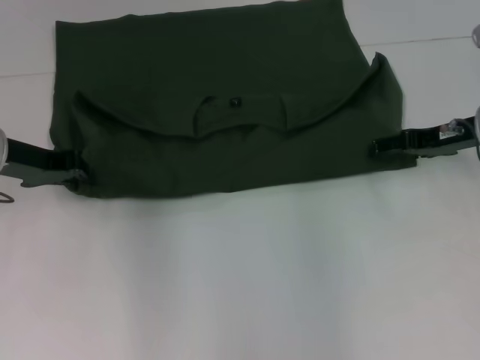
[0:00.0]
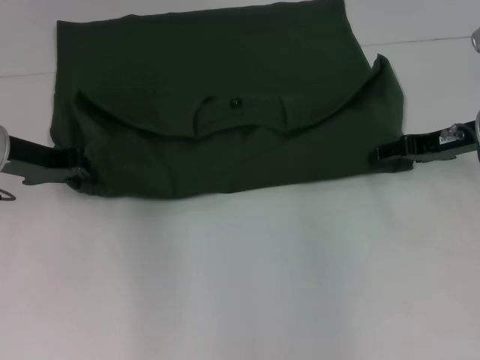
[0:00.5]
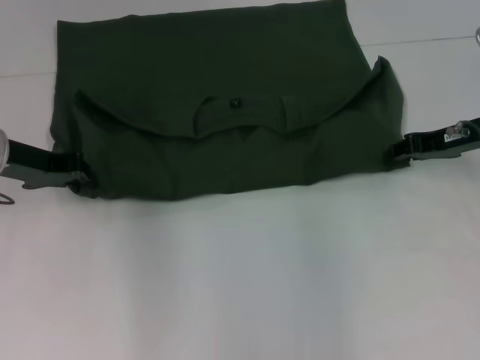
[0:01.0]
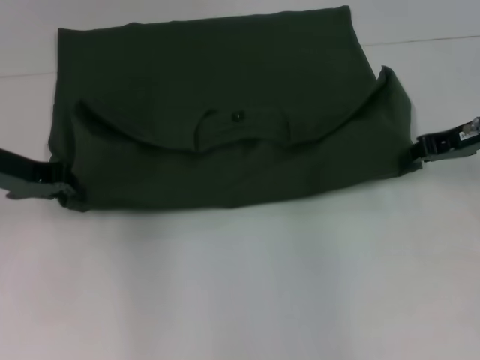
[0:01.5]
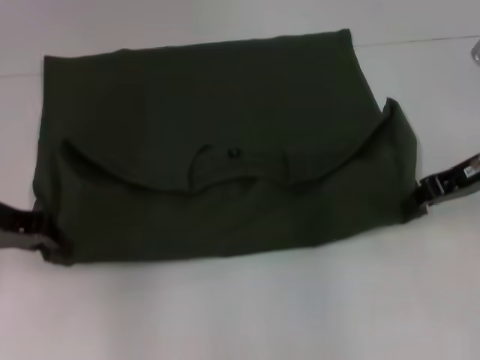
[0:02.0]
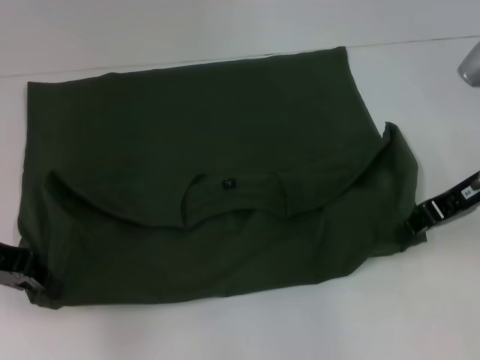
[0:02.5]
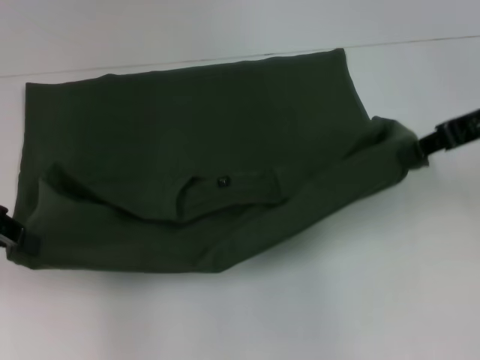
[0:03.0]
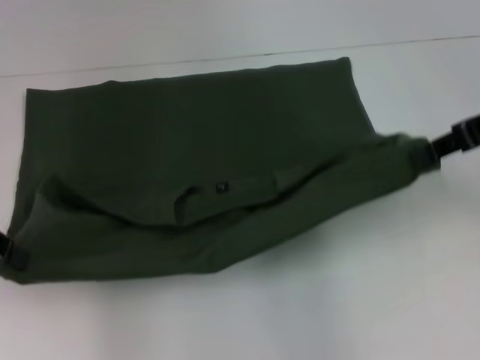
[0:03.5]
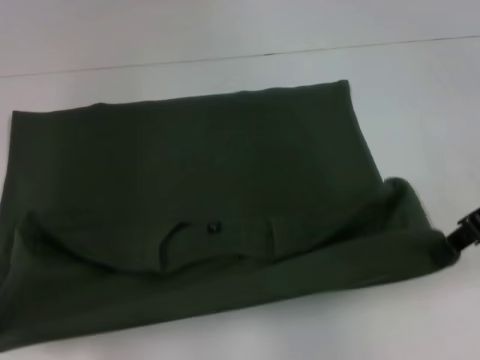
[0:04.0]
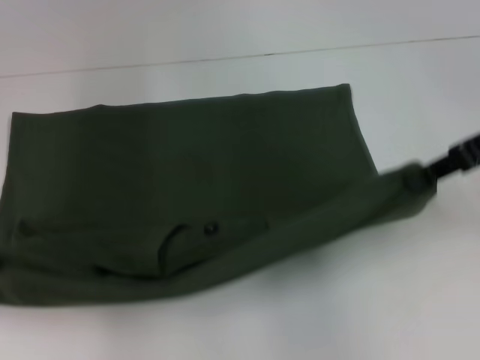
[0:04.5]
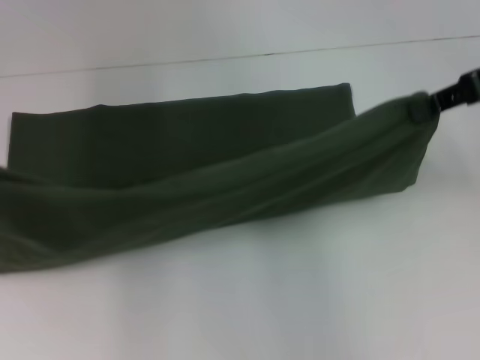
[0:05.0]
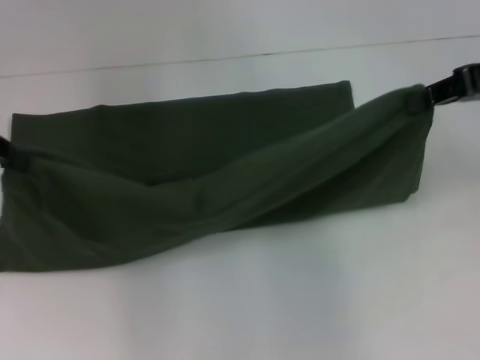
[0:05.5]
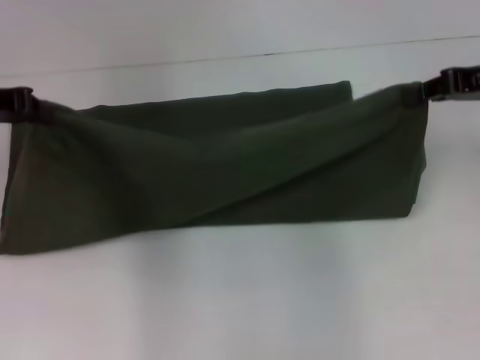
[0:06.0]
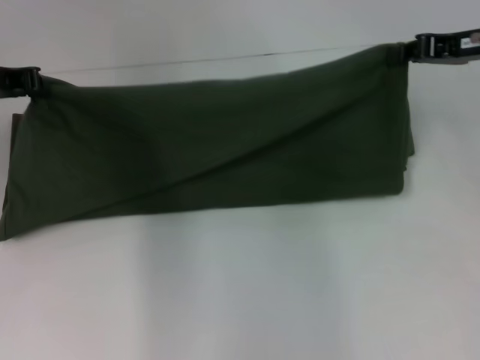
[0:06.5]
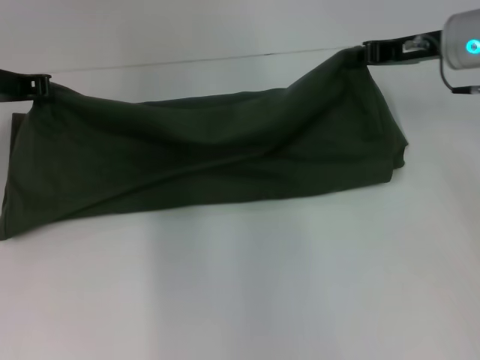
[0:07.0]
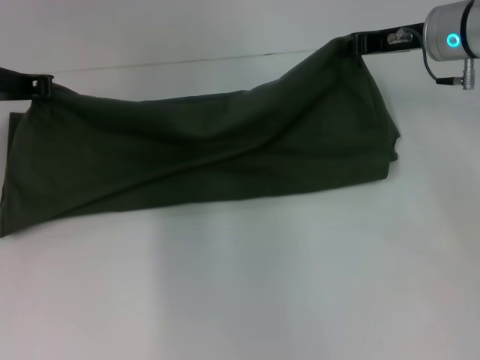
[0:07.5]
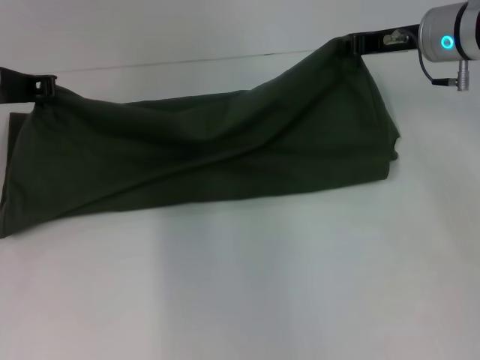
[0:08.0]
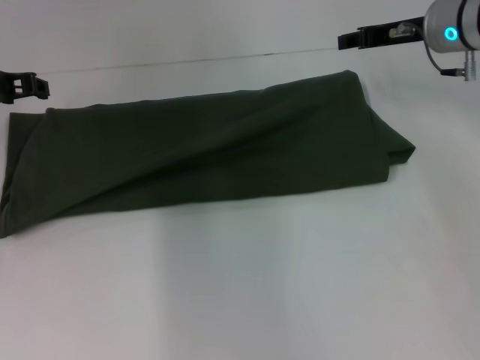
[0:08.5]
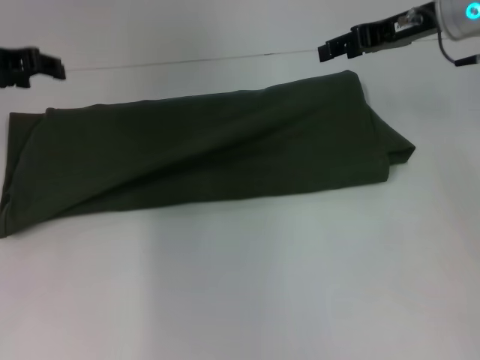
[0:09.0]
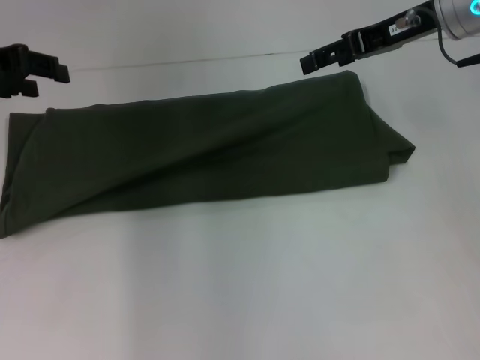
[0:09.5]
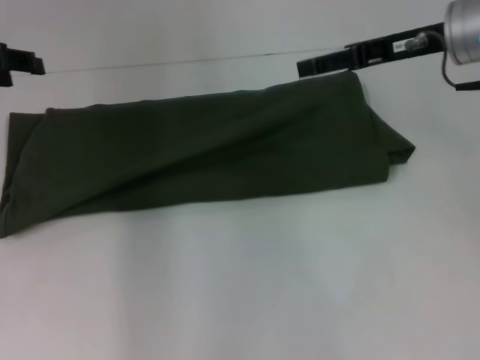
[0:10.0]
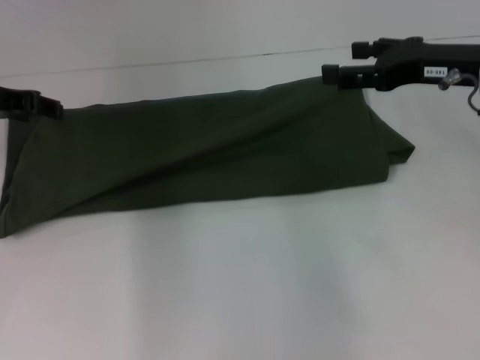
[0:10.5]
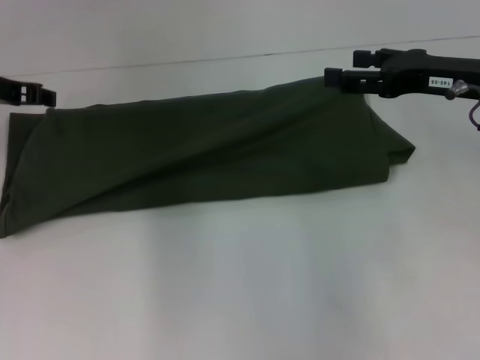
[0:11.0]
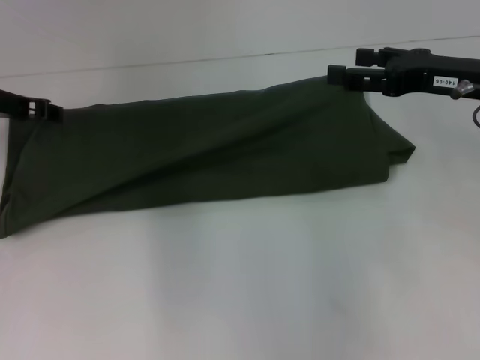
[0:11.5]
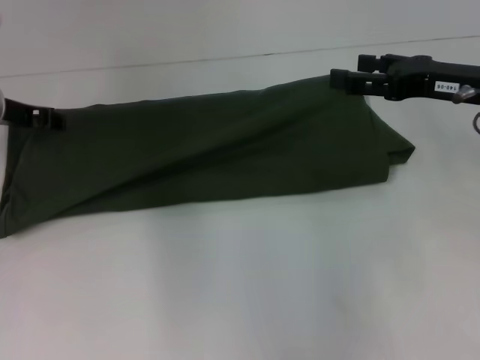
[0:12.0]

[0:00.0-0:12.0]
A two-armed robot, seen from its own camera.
Step, 0:00.0 to 0:02.0: Pull the clothes with your left hand.
Step, 0:00.0 to 0:02.0: Pull the clothes with your right hand.
Step, 0:02.5 to 0:08.5: Fold the clothes with your left hand.
Step, 0:02.5 to 0:08.5: Fold the clothes with your right hand.
0:00.0 to 0:02.0: The left gripper changes place by about 5 cm; the right gripper closes.
0:02.0 to 0:04.0: The right gripper shifts approximately 5 cm upward. The left gripper shifts by roughly 5 cm.
0:04.0 to 0:06.0: Both grippers travel together forward, approximately 5 cm.
0:06.0 to 0:08.0: The right gripper is displaced forward and to the left by some 10 cm. Meanwhile the left gripper ends up roughly 5 cm from where it was.
0:08.0 to 0:10.0: The right gripper ends up about 5 cm from where it was, and opens up. The left gripper goes about 5 cm to the left, and opens.
0:10.0 to 0:12.0: The left gripper heads downward, covering some 10 cm. Meanwhile the right gripper is displaced backward by roughly 5 cm.

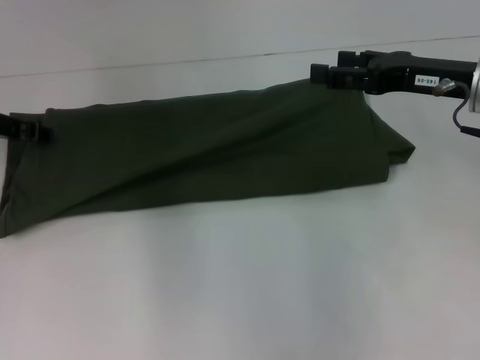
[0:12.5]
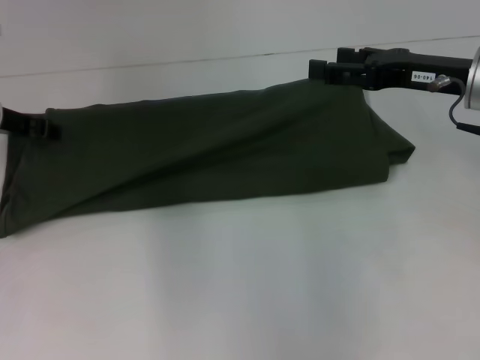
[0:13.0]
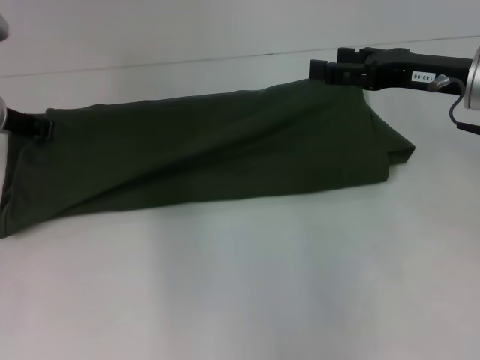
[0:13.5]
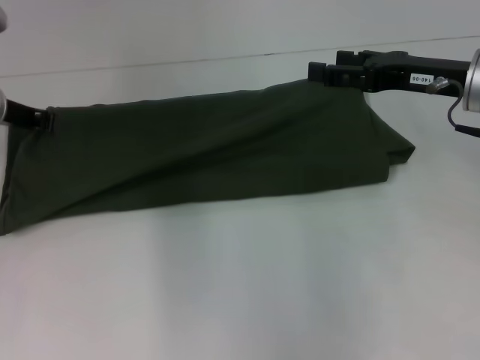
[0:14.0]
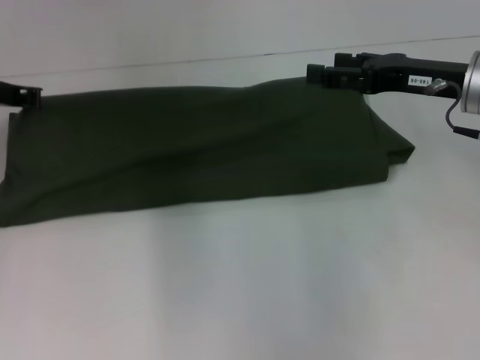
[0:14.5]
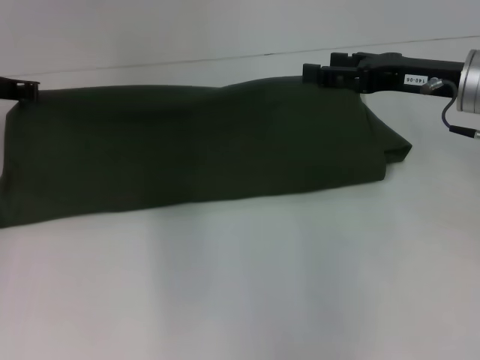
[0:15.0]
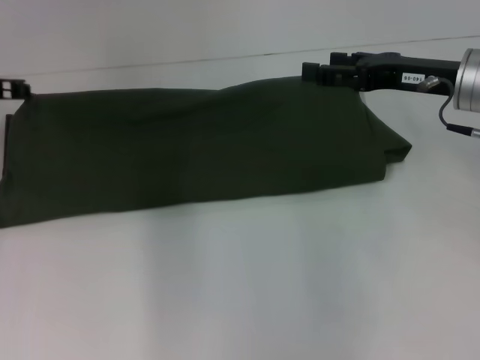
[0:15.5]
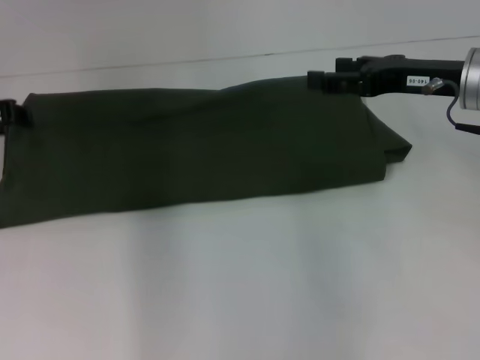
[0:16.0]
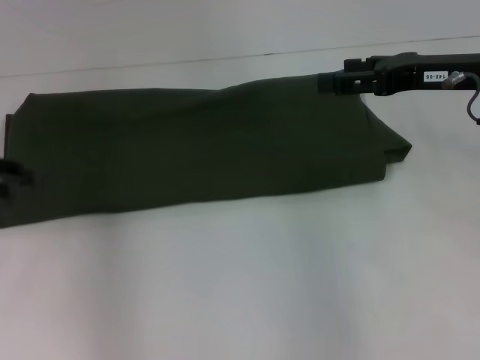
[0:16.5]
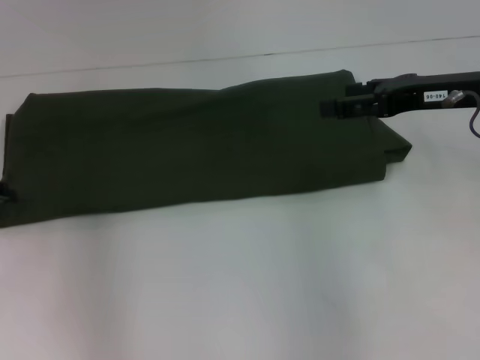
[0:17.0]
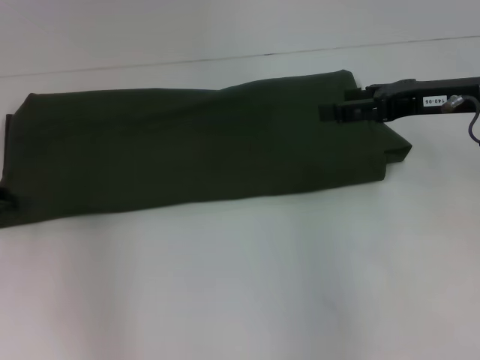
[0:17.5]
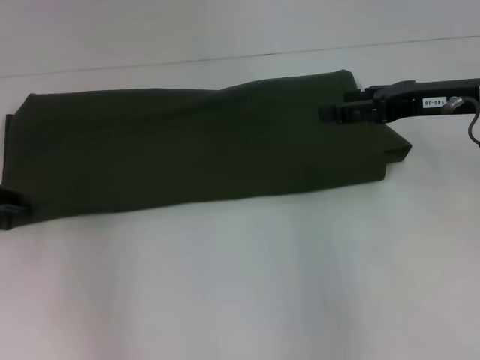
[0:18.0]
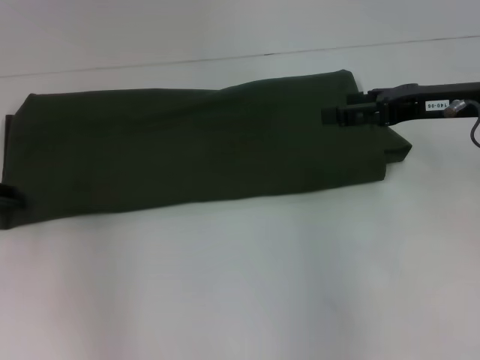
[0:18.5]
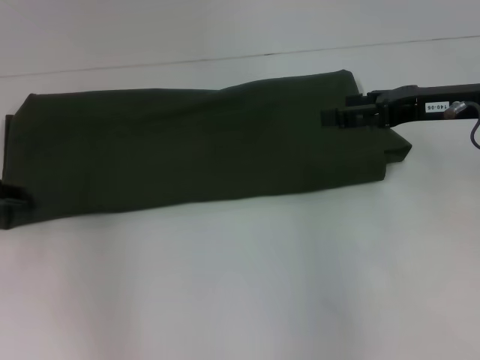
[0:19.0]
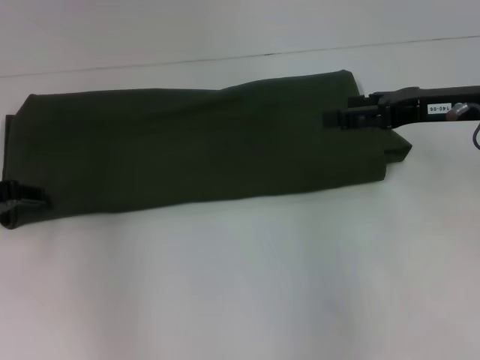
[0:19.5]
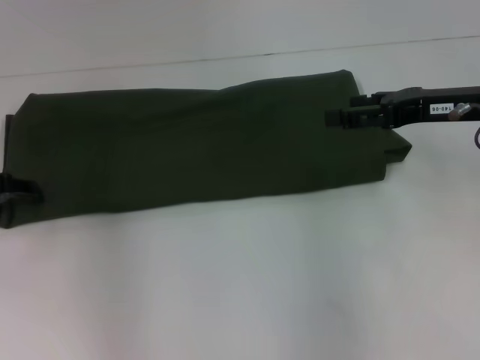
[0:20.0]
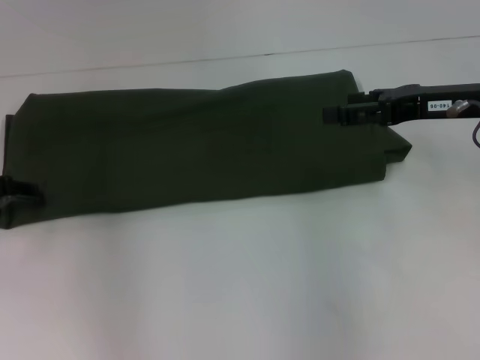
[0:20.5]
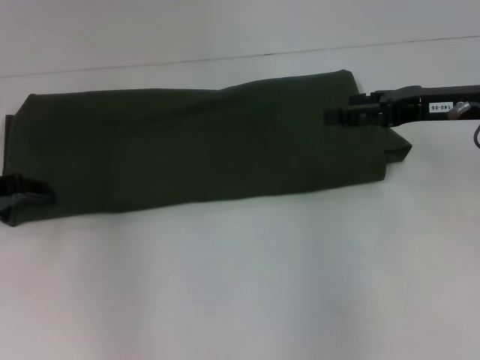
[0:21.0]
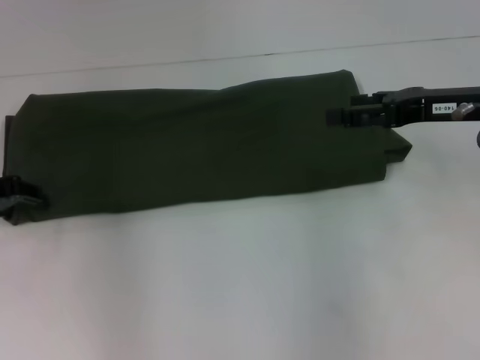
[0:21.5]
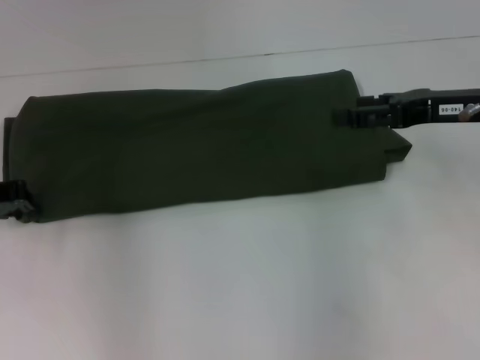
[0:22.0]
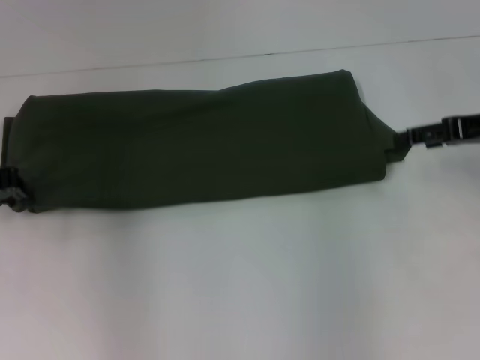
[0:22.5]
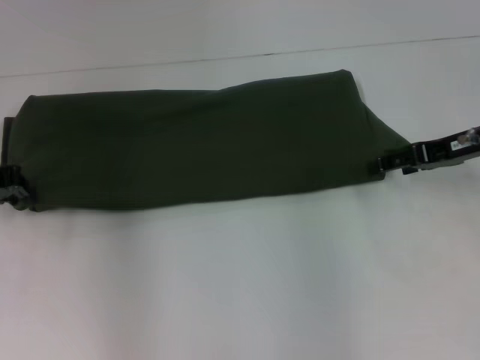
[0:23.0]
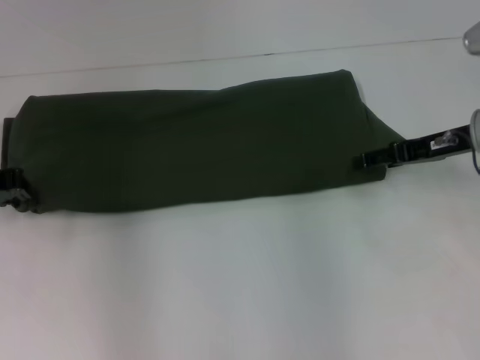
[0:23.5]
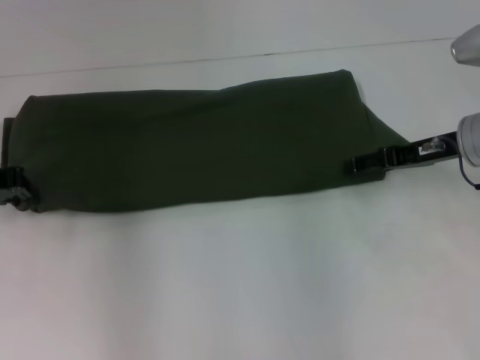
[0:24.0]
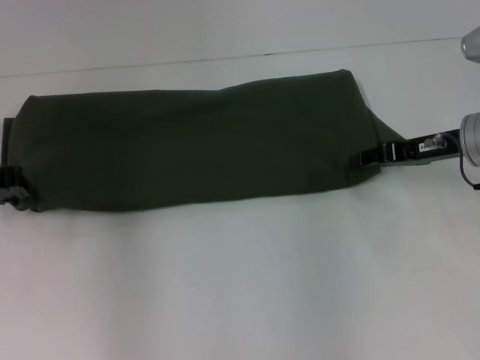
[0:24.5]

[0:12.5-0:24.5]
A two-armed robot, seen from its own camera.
0:12.5 to 0:14.5: The left gripper closes up.
0:14.5 to 0:16.5: The left gripper is displaced backward and to the left by roughly 10 cm, and opens.
0:16.5 to 0:18.5: The grippers move only a little.
0:20.5 to 0:22.5: The right gripper heads to the right, covering some 5 cm. The left gripper closes its fingers.
0:22.5 to 0:24.5: The right gripper moves downward, approximately 5 cm.

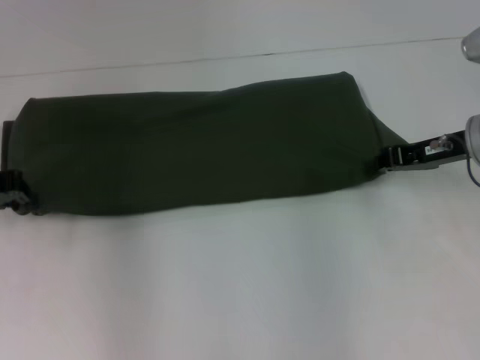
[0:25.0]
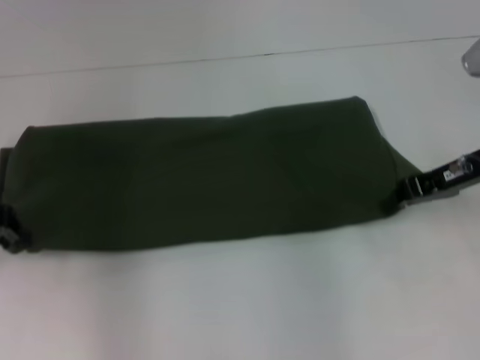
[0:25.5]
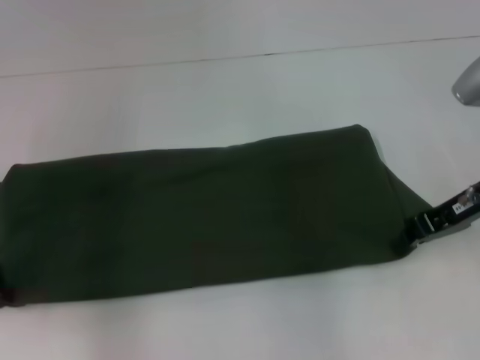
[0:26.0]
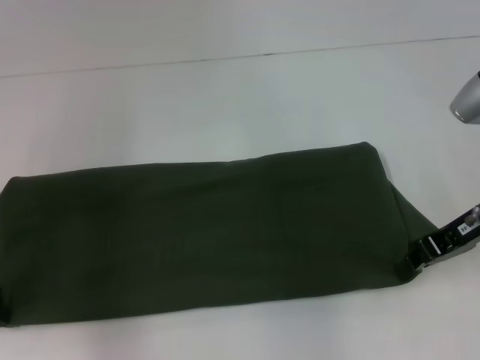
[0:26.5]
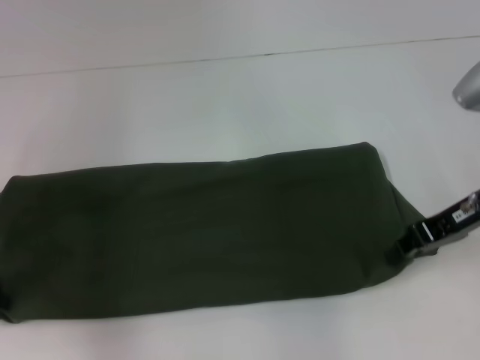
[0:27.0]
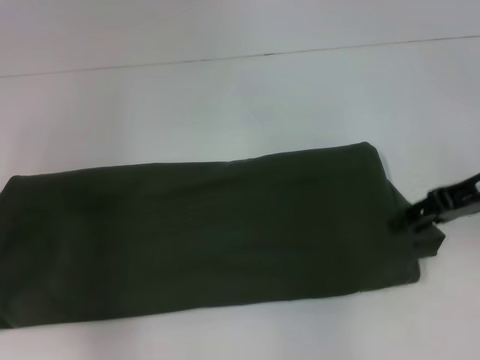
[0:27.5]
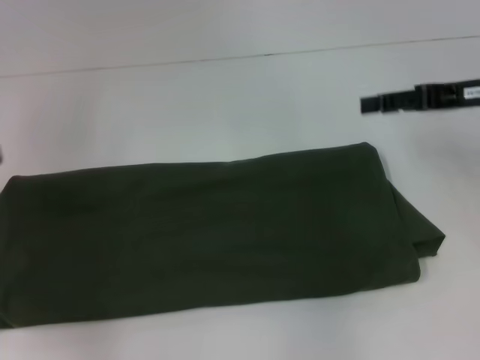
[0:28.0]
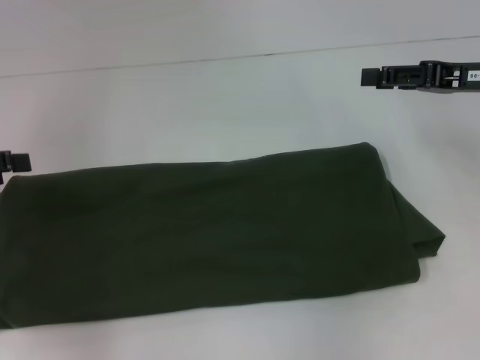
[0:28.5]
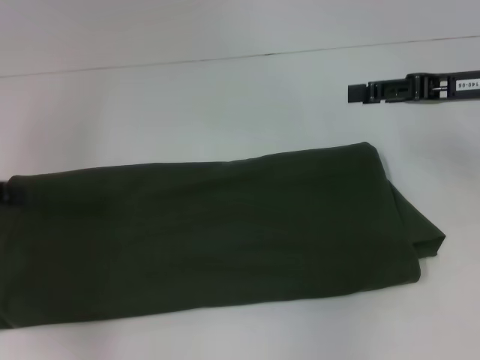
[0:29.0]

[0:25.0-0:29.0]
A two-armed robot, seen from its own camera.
Step, 0:25.0 to 0:27.5: Pull the clothes with your left hand.
Step, 0:25.0 to 0:27.5: Pull the clothes with your right hand.
0:25.0 to 0:27.0: The left gripper travels backward by about 5 cm. The right gripper changes place by some 5 cm.
0:27.0 to 0:29.0: The left gripper opens; the right gripper shifts by some 5 cm, and opens up.
